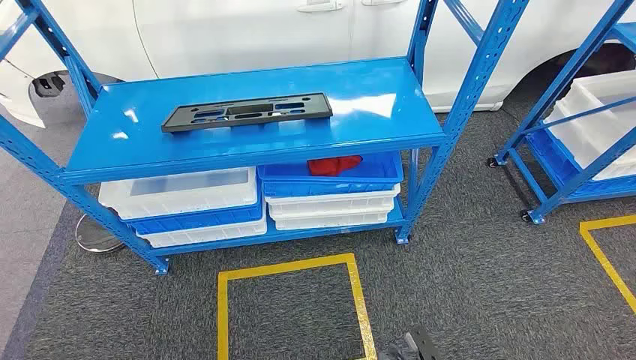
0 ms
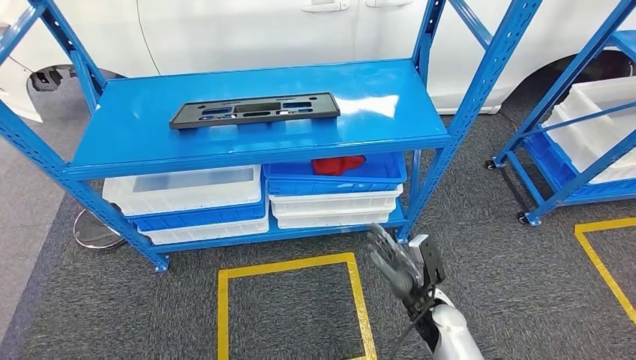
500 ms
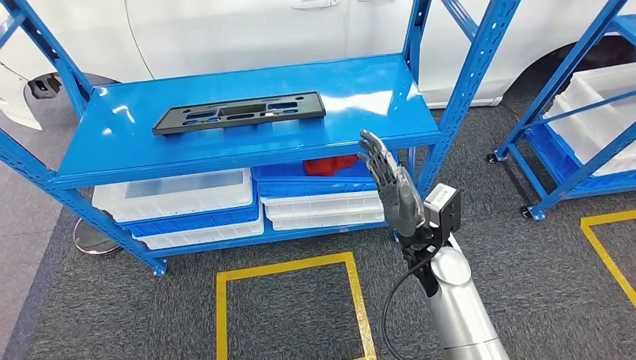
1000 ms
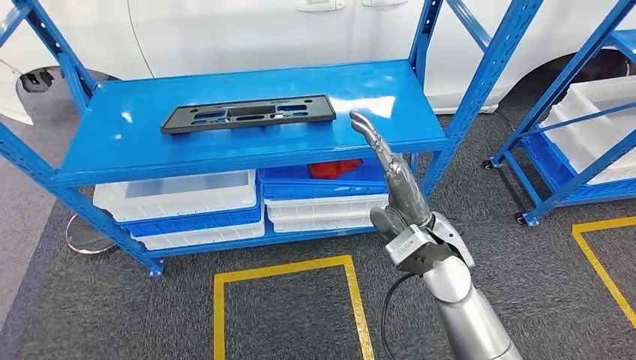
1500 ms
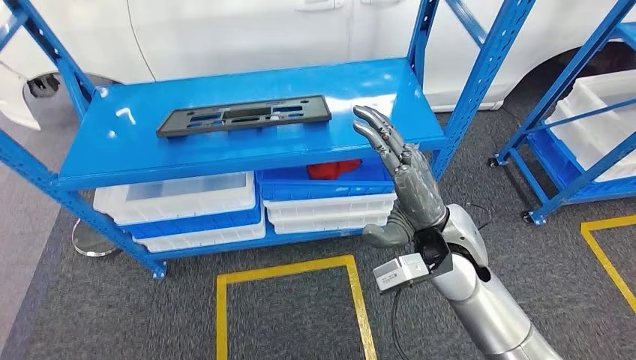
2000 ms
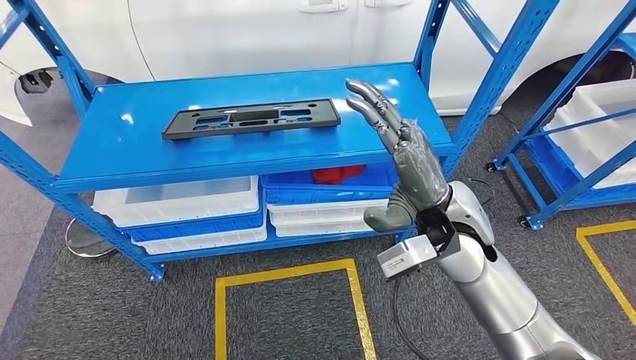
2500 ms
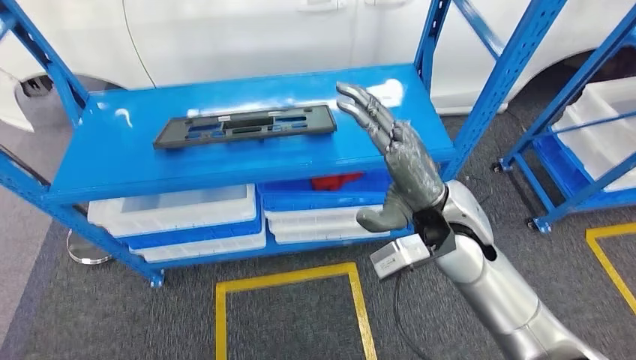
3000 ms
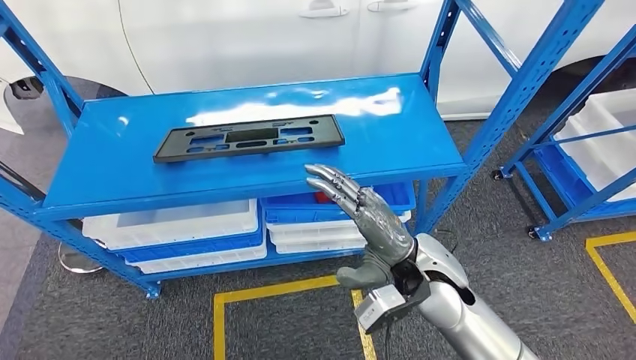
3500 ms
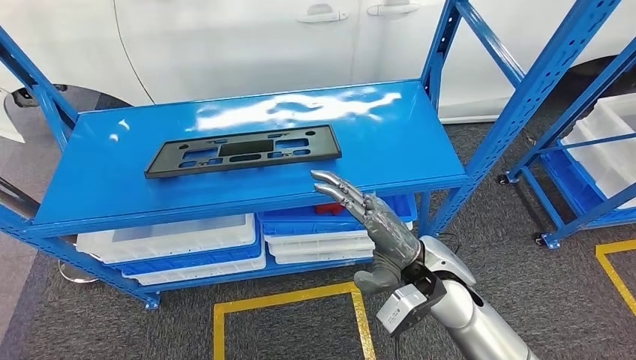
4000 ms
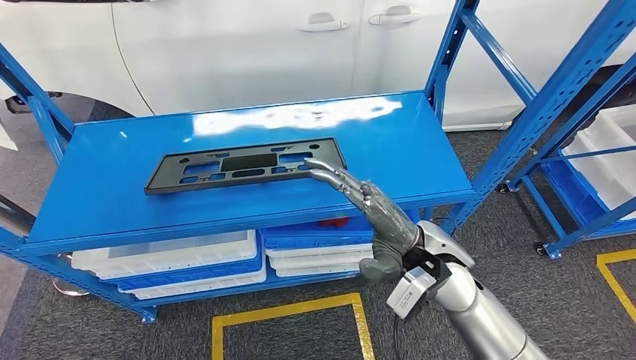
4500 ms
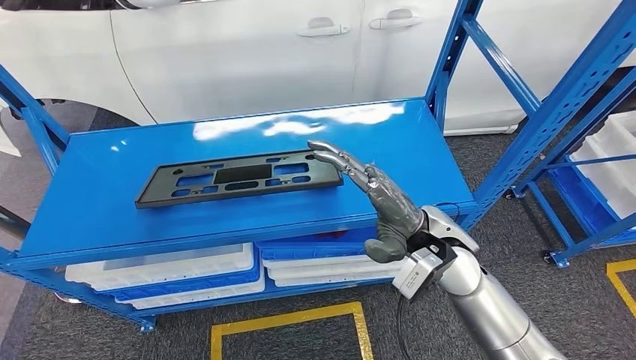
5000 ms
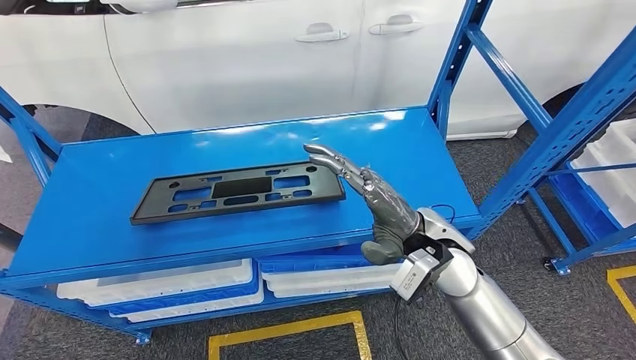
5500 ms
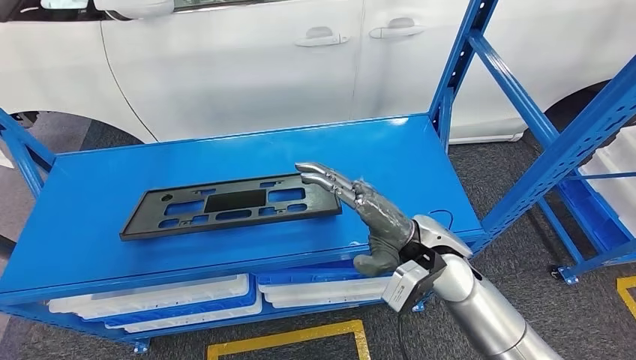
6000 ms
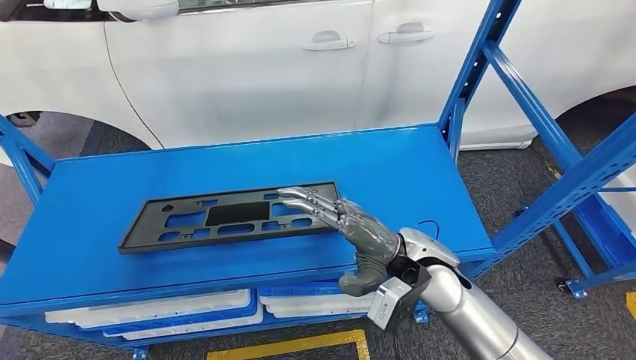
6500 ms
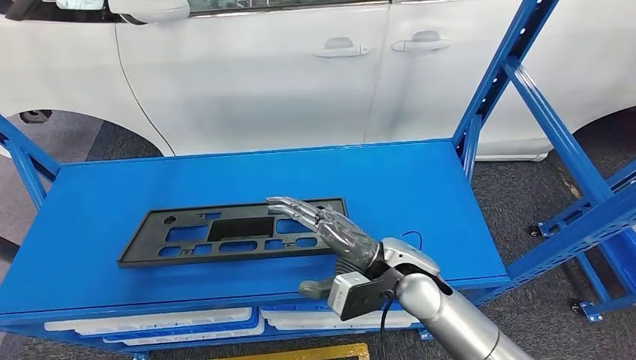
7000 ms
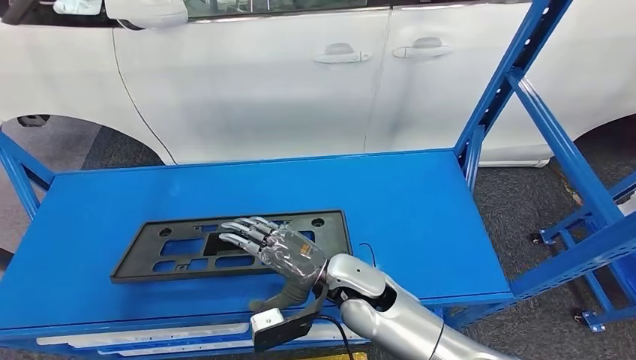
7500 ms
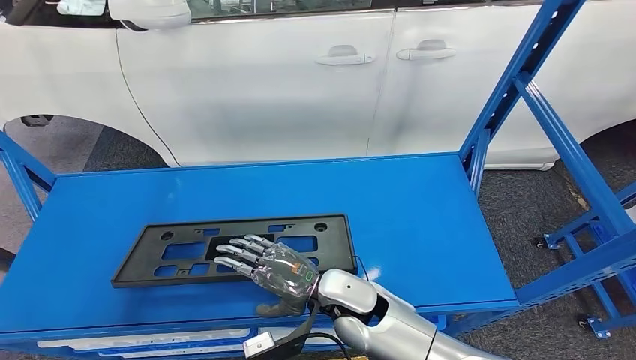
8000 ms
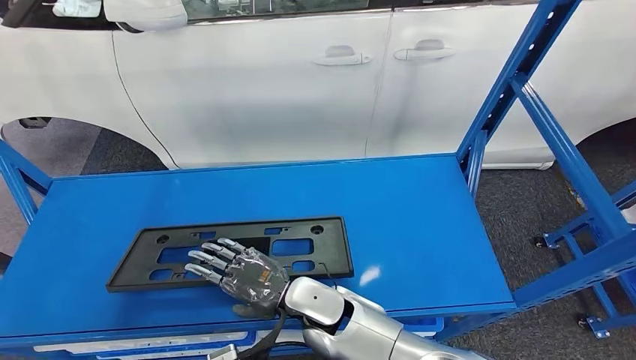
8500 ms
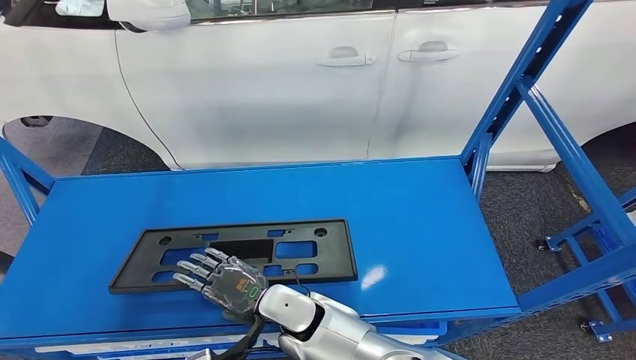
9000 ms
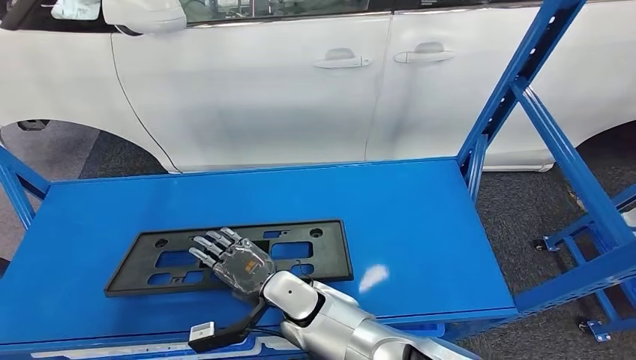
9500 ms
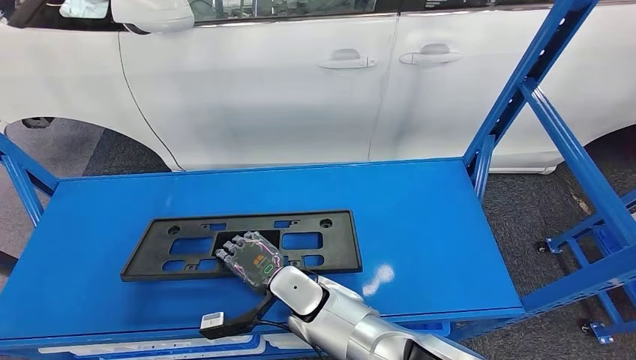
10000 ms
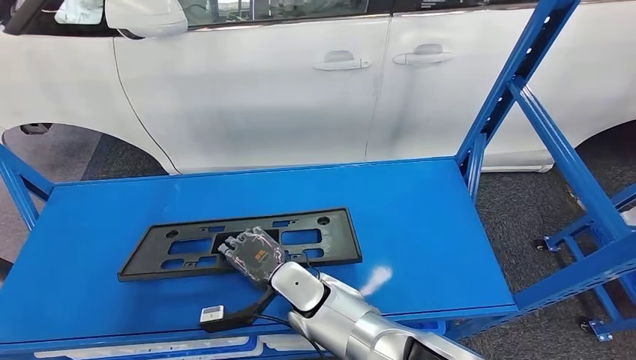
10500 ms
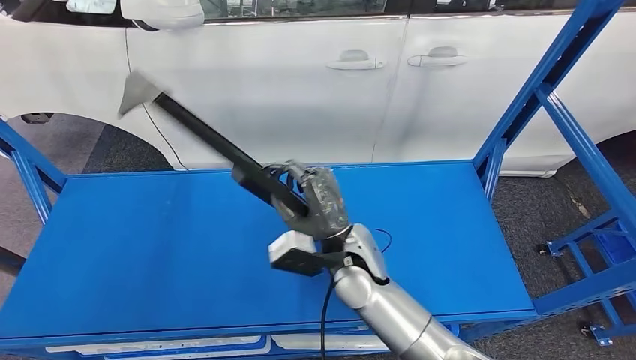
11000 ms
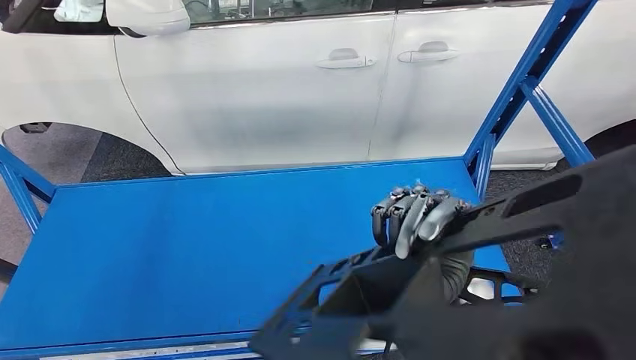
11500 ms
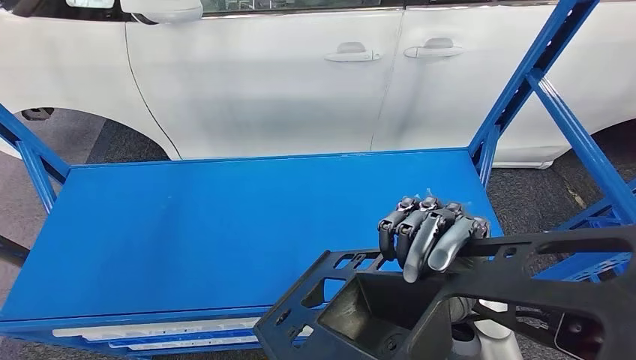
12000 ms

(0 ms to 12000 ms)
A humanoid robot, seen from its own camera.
Step, 0 ms - 11000 ms: Pick up the small component from the shelf.
8000 ms - 10000 ms: The right hand is displaced to the left by roughly 10 cm.

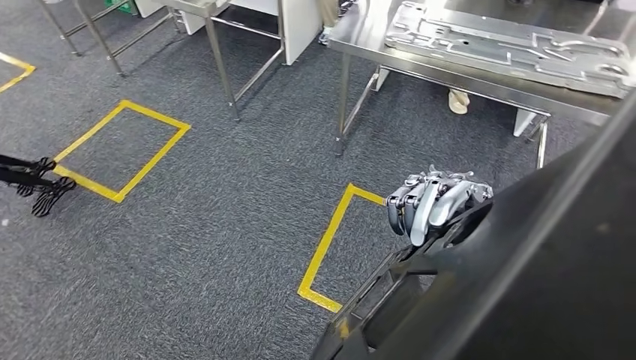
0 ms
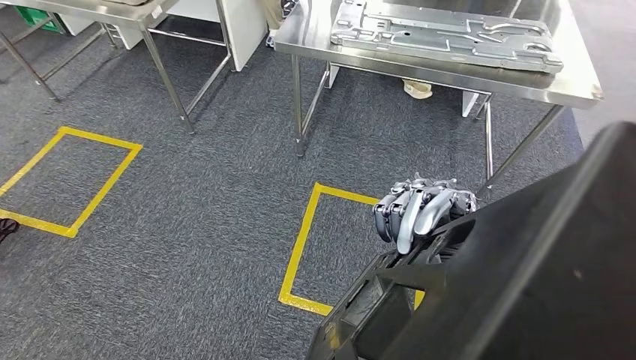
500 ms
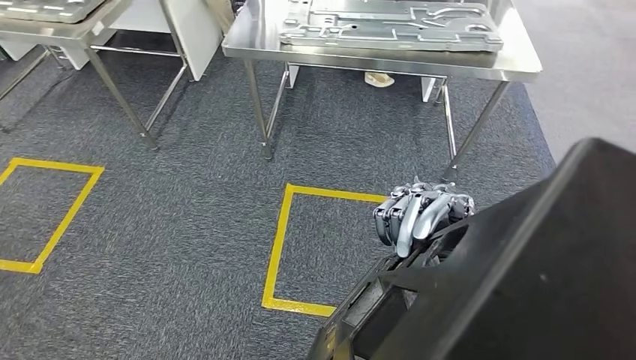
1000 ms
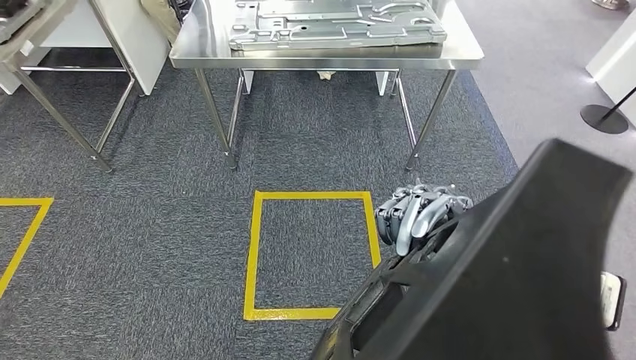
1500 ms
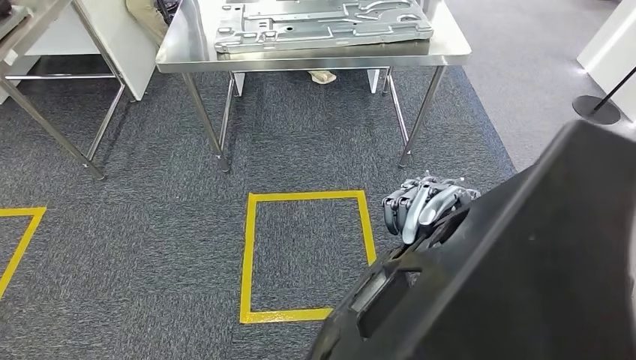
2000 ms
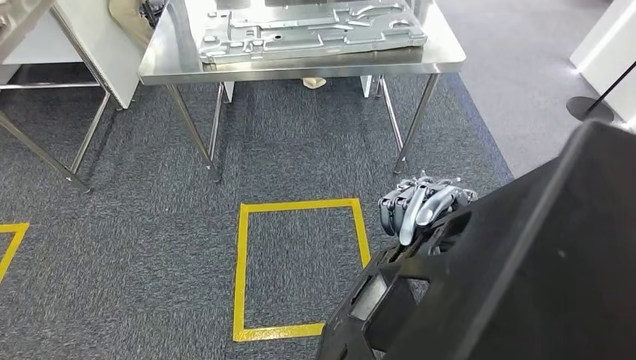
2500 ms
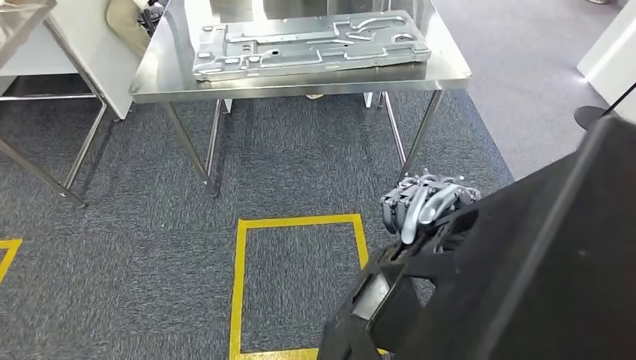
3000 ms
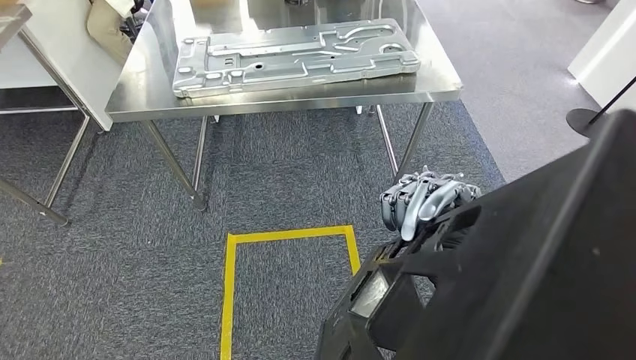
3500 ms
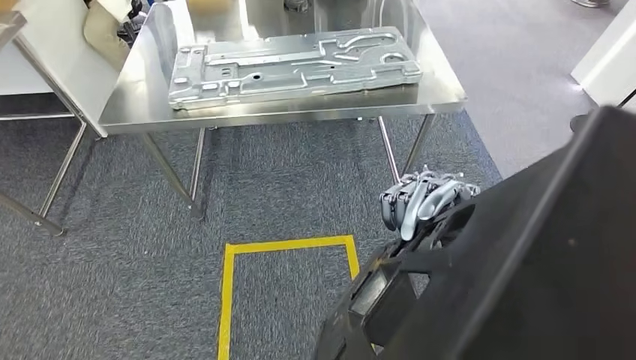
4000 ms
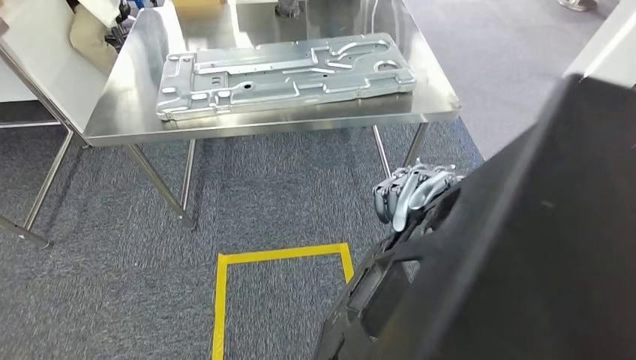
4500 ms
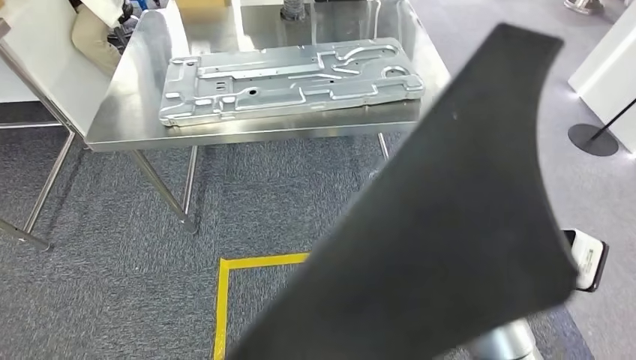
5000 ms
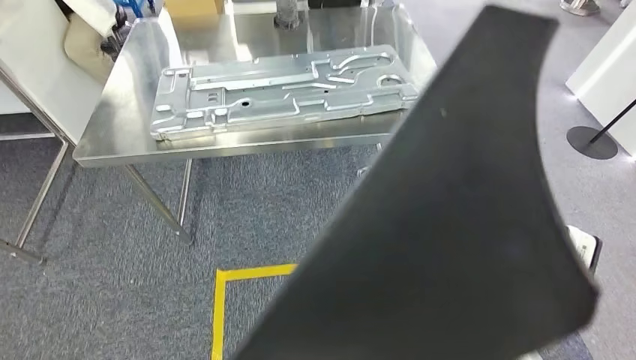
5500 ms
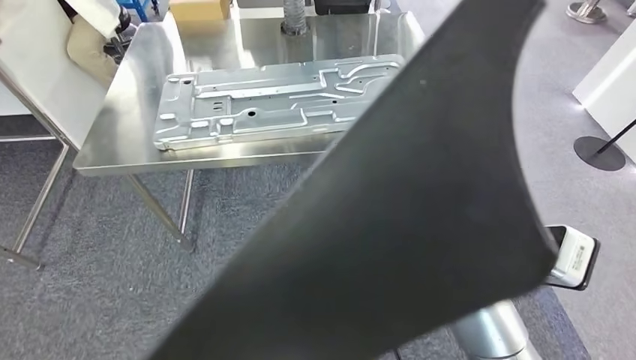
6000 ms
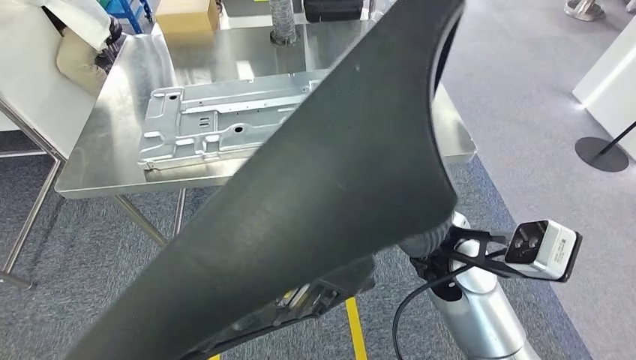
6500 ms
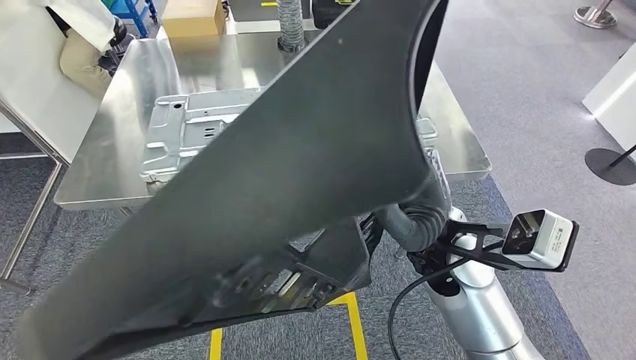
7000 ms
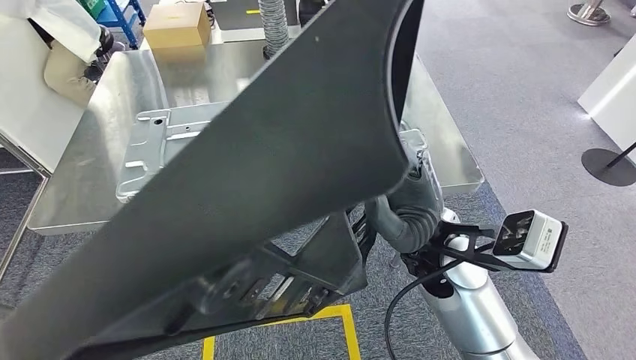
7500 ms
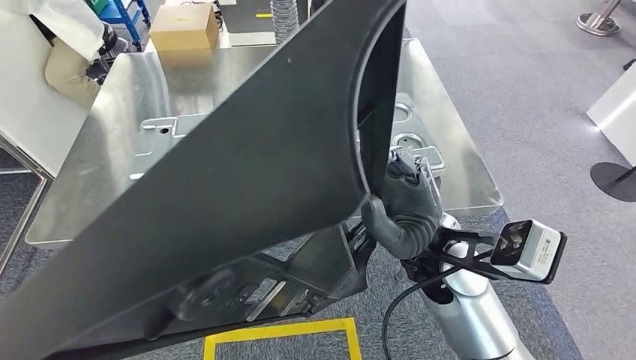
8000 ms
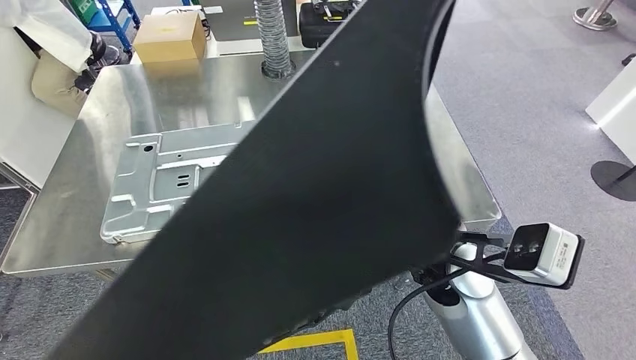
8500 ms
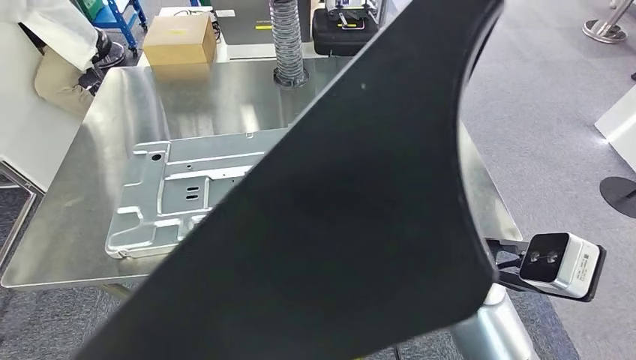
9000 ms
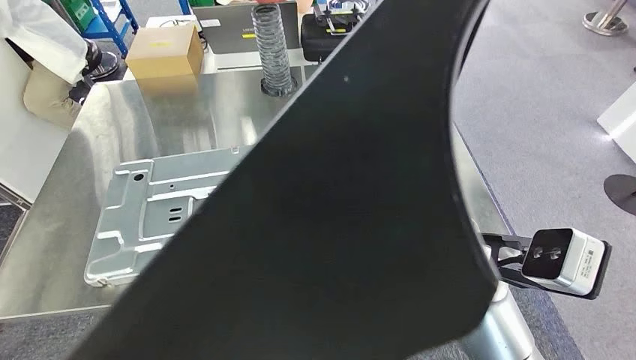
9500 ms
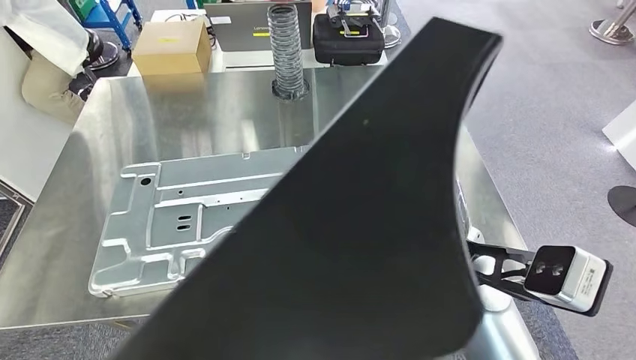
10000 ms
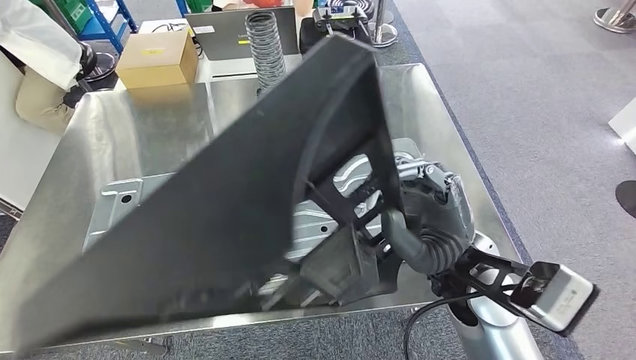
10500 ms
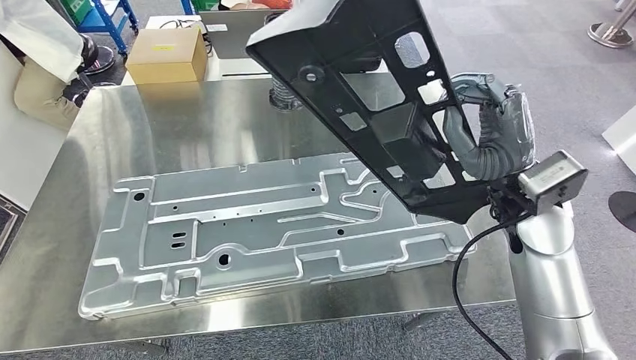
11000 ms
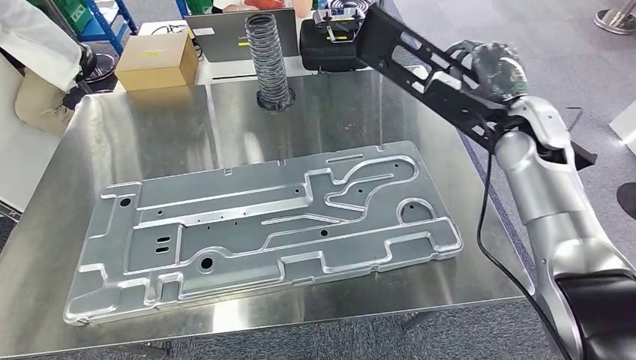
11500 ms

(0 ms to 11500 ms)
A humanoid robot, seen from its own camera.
Step, 0 ms - 11000 ms: Move the small component to the workbench.
